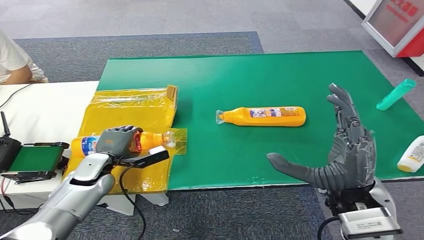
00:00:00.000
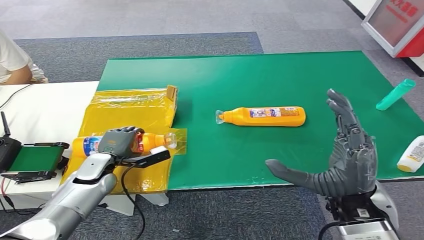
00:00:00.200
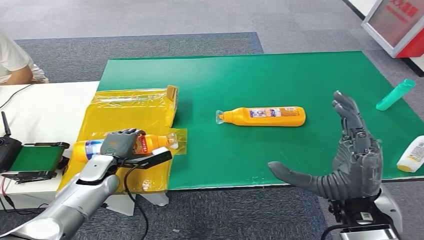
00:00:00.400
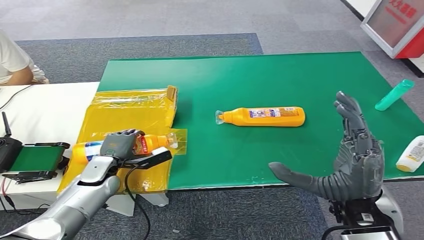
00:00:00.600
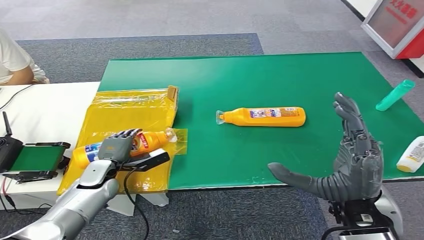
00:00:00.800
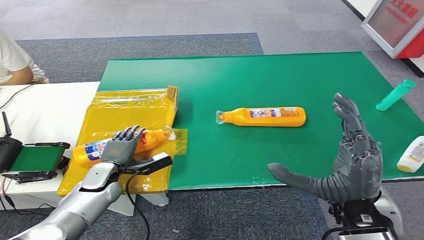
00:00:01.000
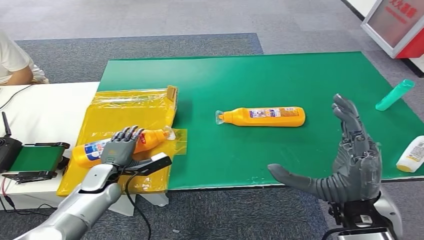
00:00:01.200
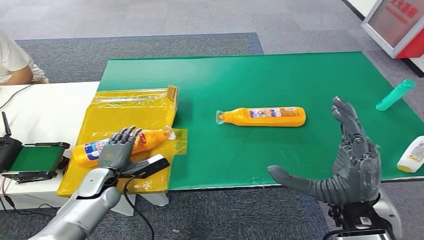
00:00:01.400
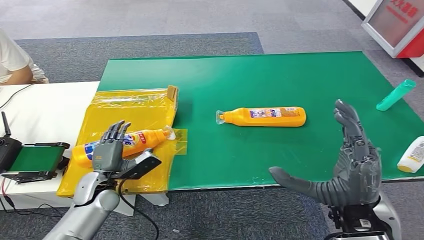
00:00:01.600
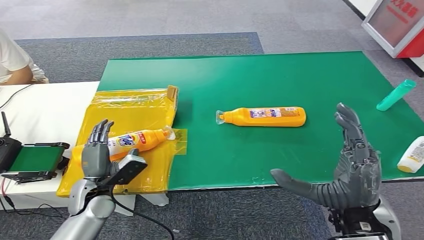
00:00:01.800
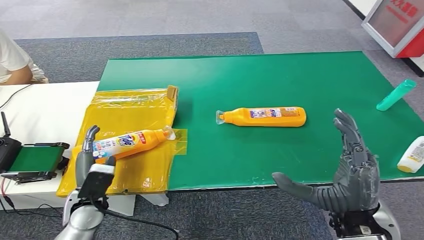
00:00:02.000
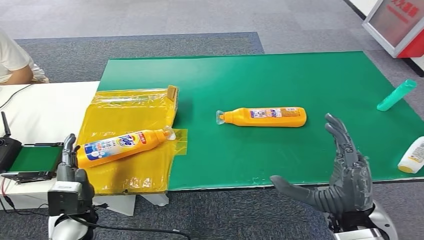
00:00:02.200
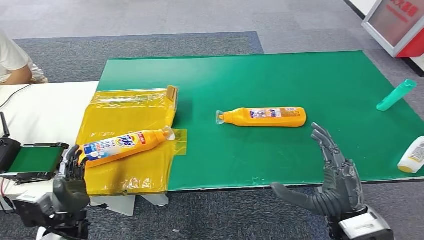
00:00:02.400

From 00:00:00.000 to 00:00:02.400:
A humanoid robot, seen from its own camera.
Step, from 00:00:00.000 to 00:00:02.400: Turn the bottle to the front side.
From 00:00:00.000 to 00:00:01.200: The hands stay close to where they were, moving slightly.
From 00:00:01.200 to 00:00:02.400: The left hand is displaced backward by approximately 15 cm. Meanwhile the right hand is displaced downward by approximately 5 cm.
